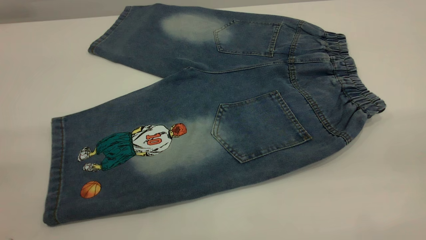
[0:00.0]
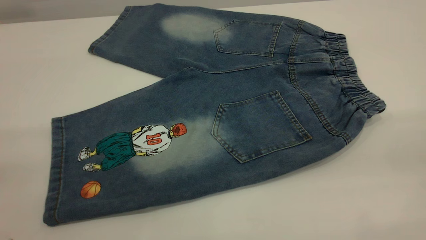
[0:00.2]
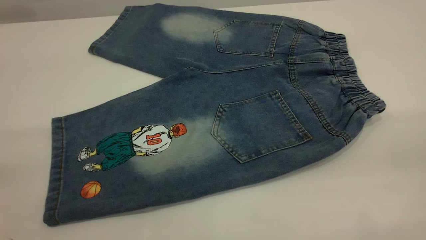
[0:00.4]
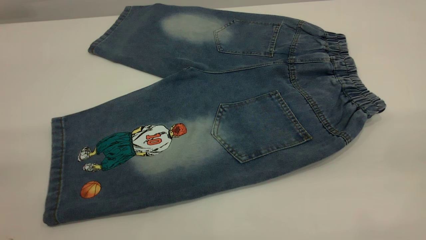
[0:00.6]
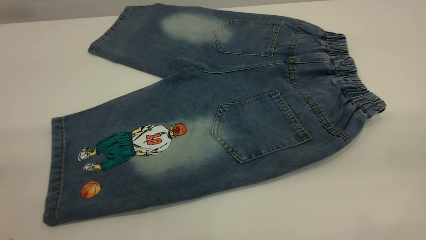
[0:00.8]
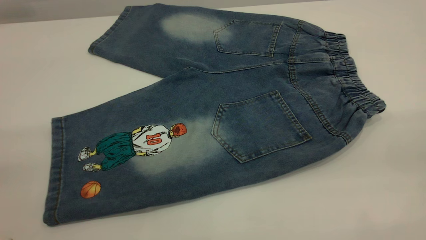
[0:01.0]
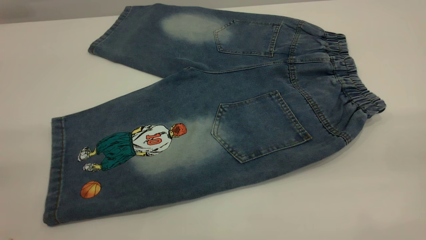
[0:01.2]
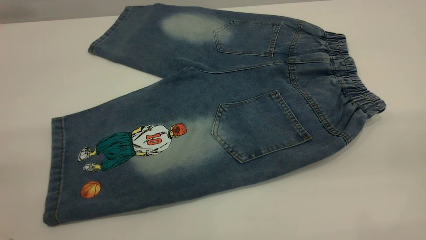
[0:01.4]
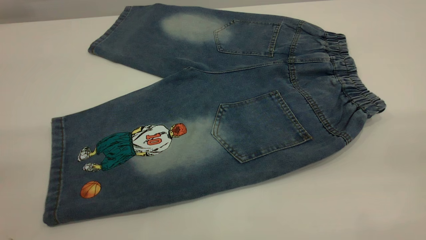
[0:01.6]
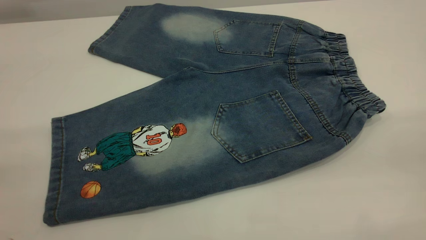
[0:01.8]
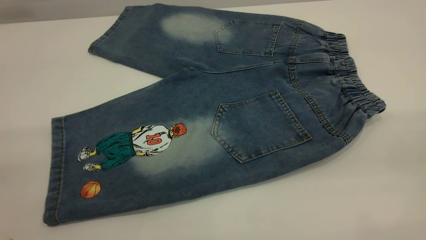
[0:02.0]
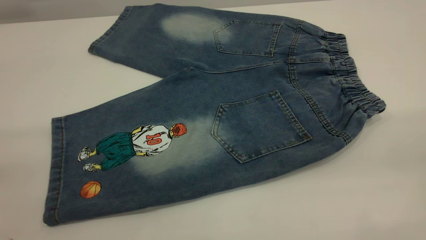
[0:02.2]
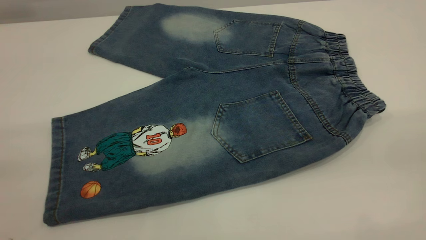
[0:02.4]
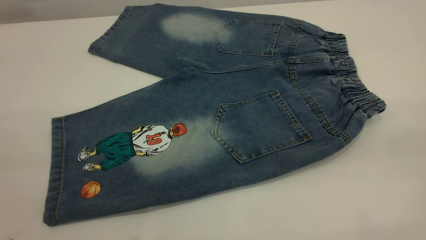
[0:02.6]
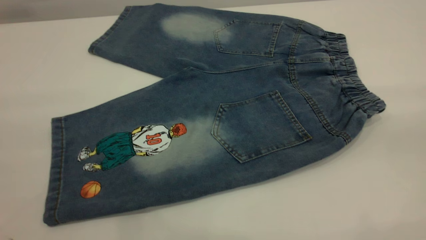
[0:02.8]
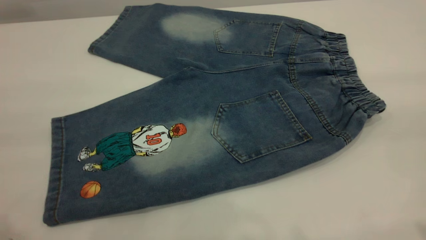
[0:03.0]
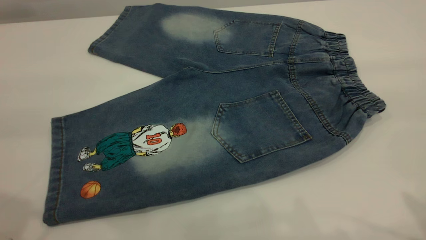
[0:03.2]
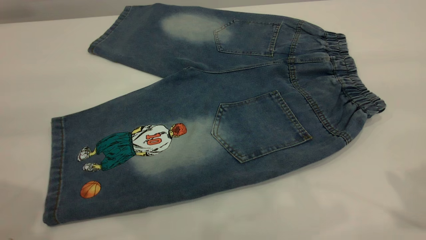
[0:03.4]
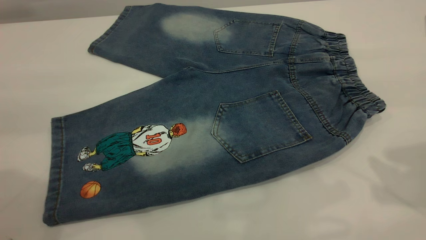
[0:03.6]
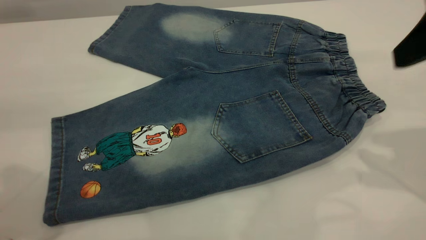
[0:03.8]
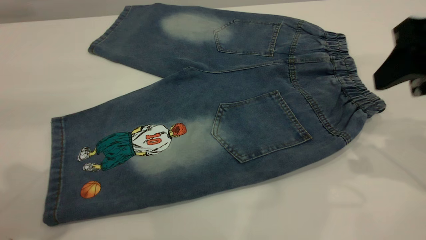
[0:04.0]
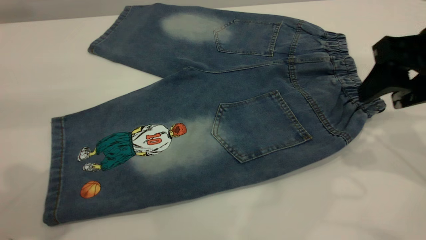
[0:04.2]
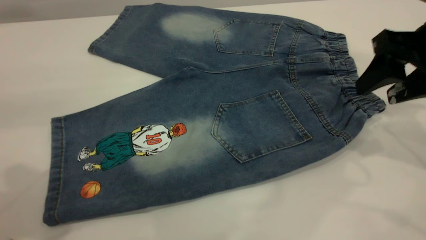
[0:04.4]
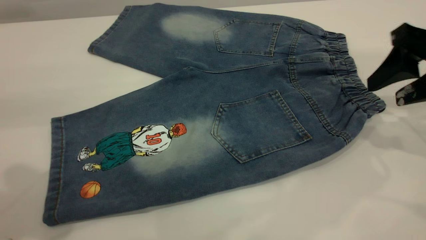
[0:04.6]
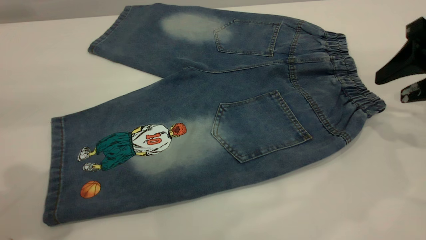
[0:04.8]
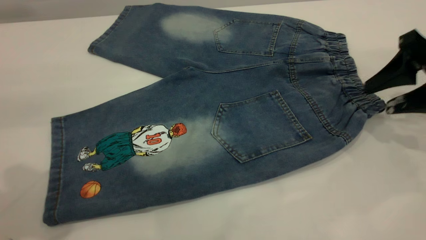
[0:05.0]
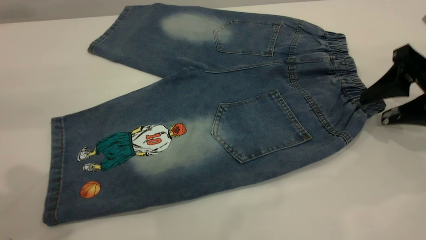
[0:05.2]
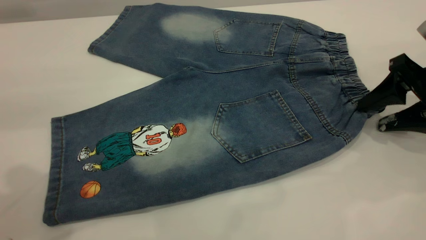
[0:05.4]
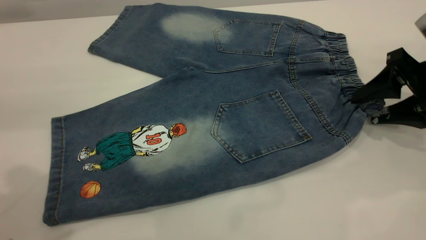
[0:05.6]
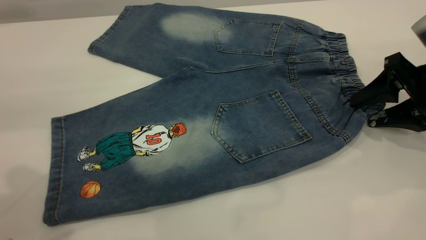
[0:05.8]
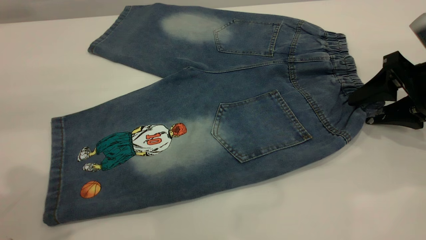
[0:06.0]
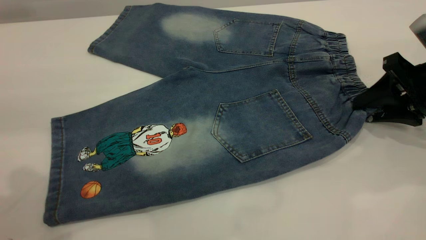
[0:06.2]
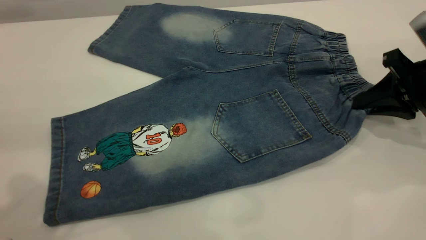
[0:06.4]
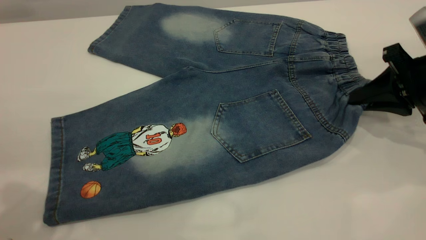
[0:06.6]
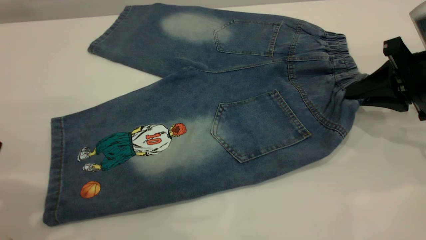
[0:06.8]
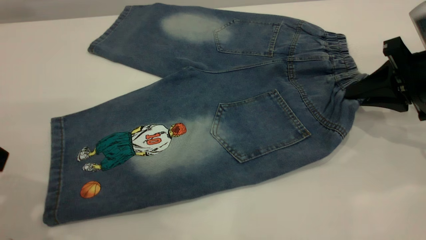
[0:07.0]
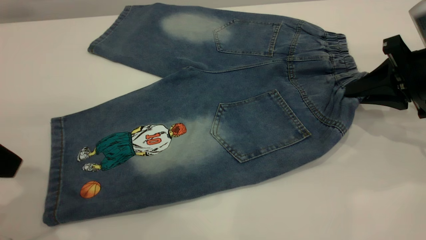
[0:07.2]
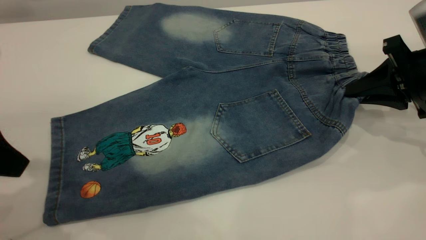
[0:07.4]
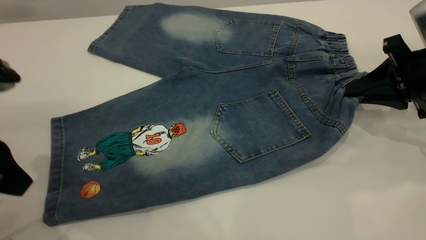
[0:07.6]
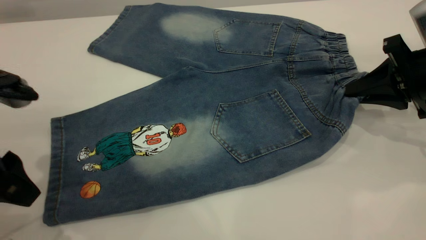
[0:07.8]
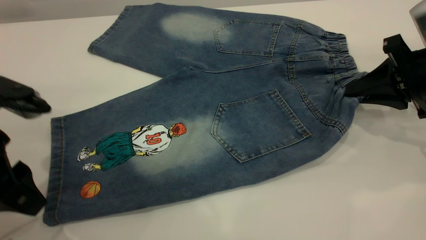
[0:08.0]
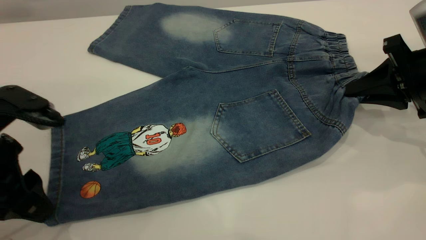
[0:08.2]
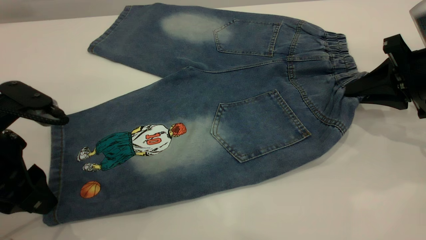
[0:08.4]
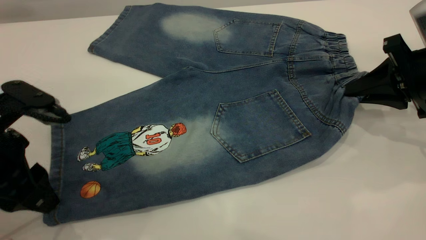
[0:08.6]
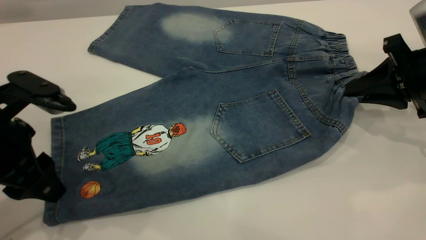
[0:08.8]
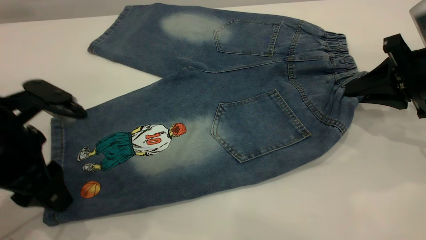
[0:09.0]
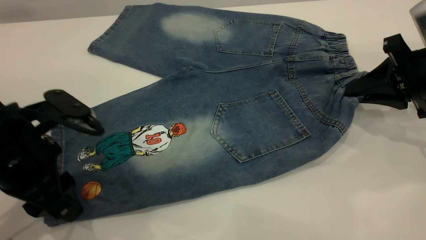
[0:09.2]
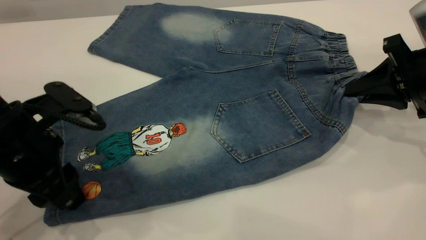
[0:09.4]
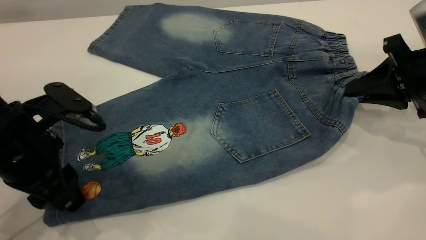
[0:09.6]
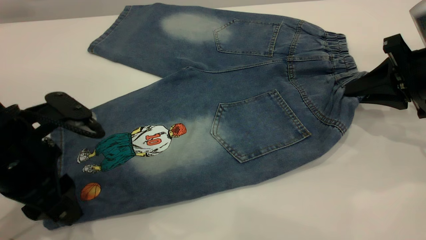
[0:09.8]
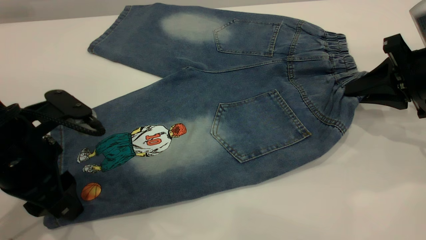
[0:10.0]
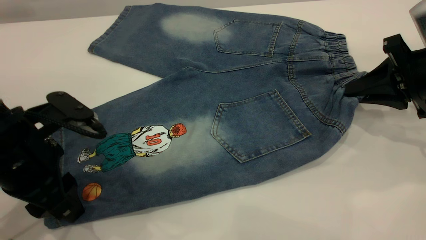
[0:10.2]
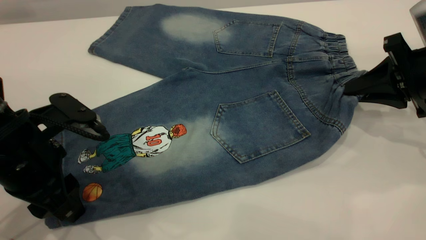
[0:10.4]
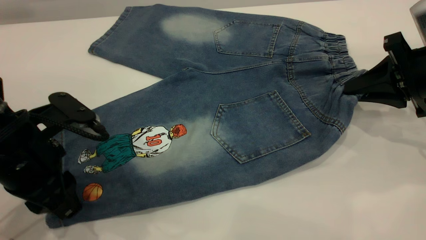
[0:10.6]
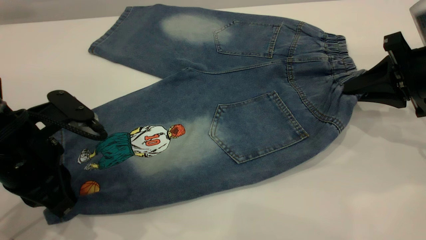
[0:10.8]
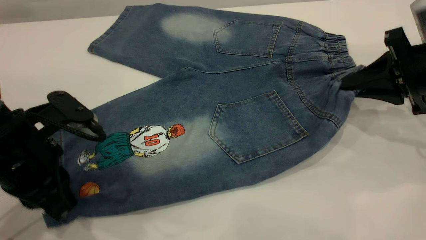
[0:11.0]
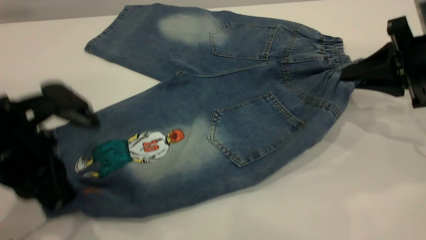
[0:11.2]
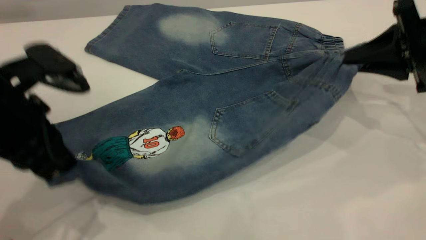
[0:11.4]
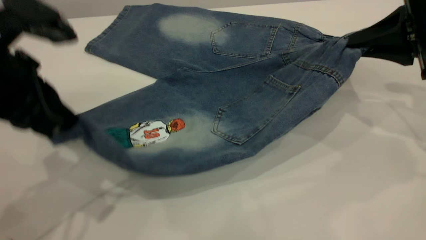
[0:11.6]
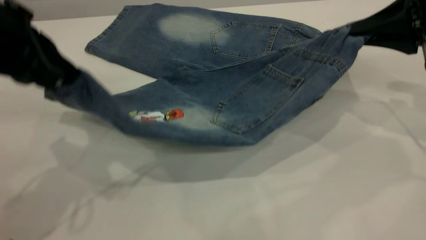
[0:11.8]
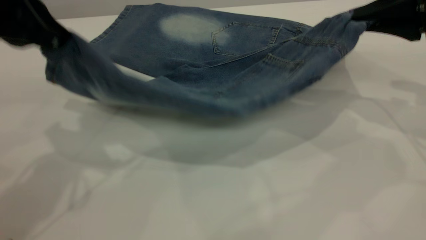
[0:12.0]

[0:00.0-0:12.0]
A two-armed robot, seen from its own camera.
0:00.0 to 0:01.6: Both grippers stay about where they are.
0:03.0 to 0:04.4: The right gripper goes approximately 25 cm forward and downward.
0:04.4 to 0:06.0: The right gripper moves downward, roughly 10 cm.
0:06.0 to 0:07.6: The right gripper closes up. Meanwhile the left gripper is displaced downward by some 15 cm.
0:07.6 to 0:09.0: The left gripper shifts by roughly 5 cm.
0:09.0 to 0:10.4: The grippers stay close to where they were, moving slightly.
0:10.4 to 0:12.0: The right gripper heads upward, covering roughly 10 cm; the left gripper moves upward and forward, roughly 15 cm, and closes.

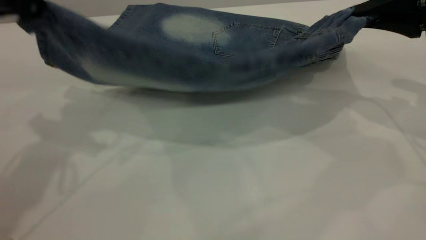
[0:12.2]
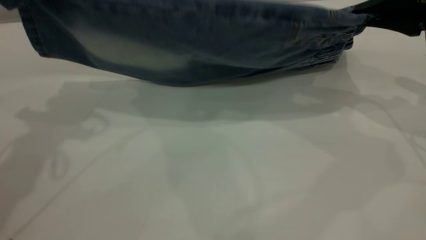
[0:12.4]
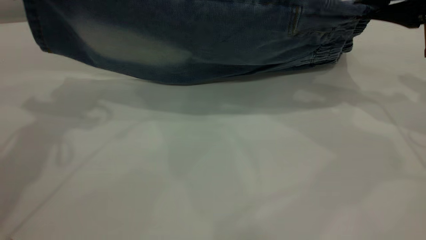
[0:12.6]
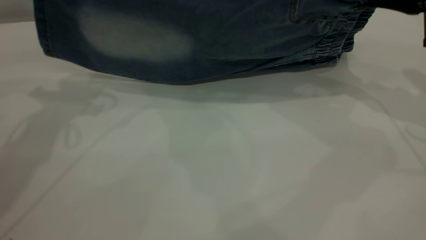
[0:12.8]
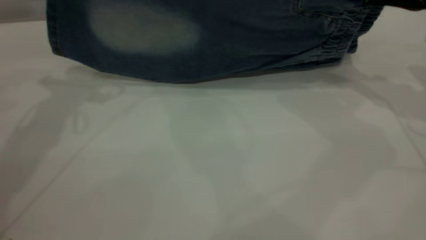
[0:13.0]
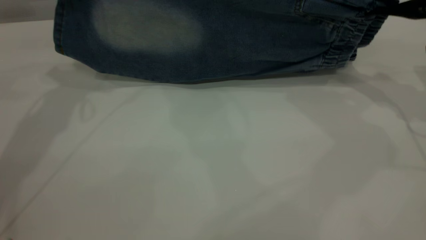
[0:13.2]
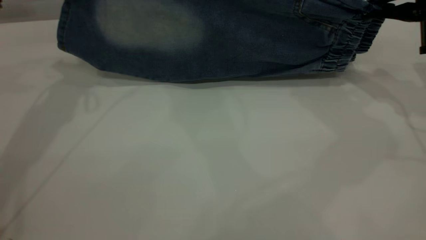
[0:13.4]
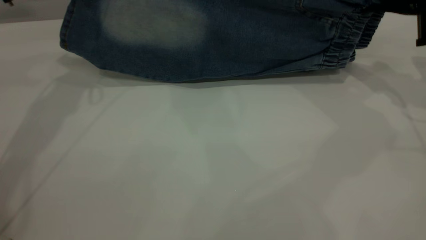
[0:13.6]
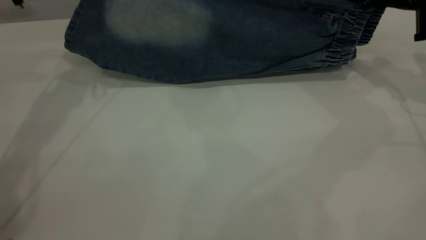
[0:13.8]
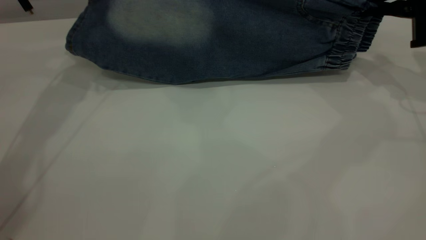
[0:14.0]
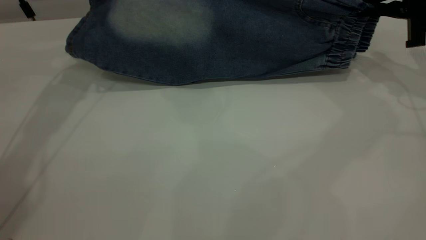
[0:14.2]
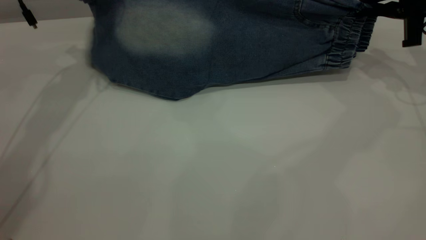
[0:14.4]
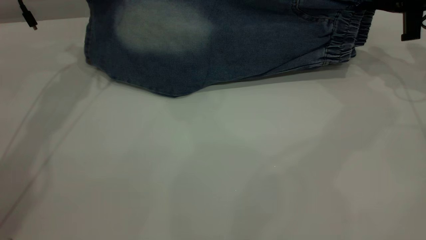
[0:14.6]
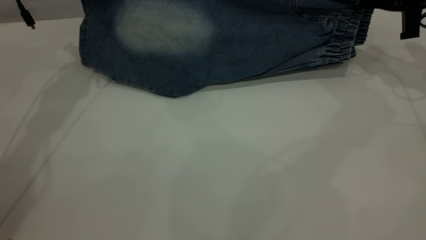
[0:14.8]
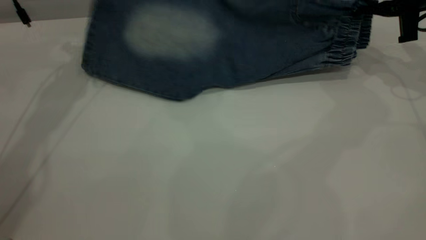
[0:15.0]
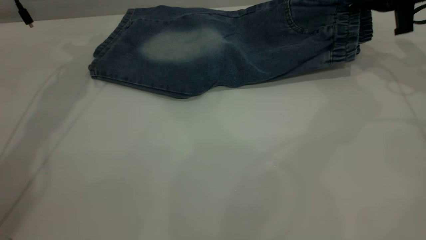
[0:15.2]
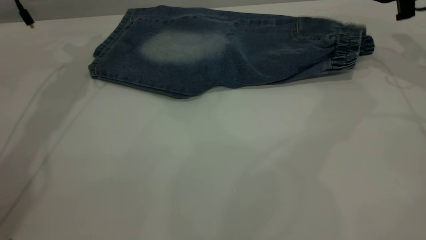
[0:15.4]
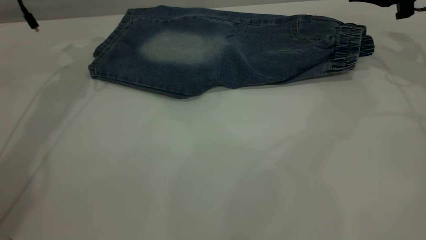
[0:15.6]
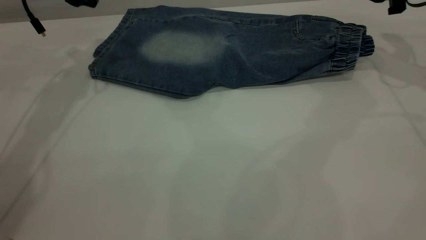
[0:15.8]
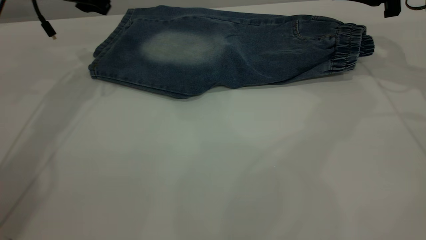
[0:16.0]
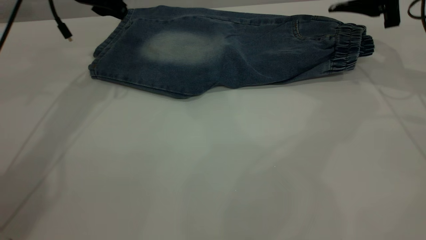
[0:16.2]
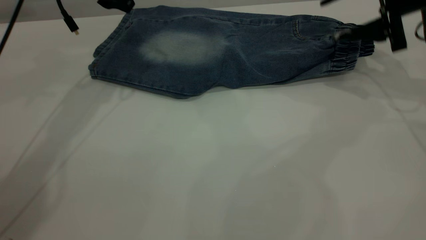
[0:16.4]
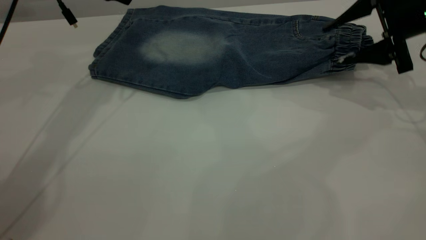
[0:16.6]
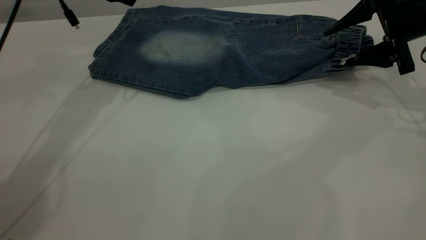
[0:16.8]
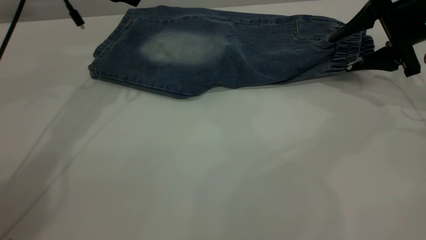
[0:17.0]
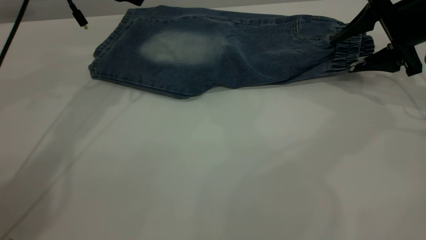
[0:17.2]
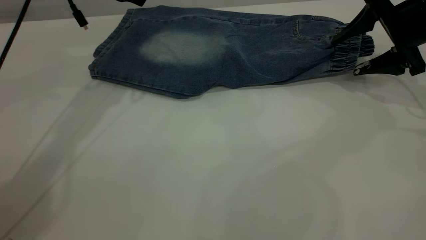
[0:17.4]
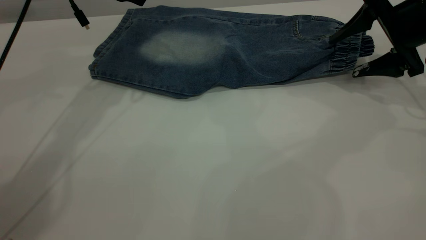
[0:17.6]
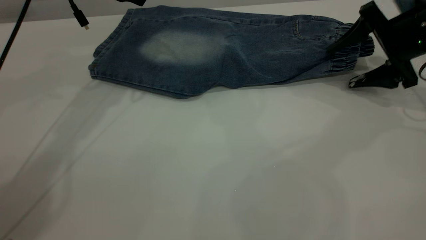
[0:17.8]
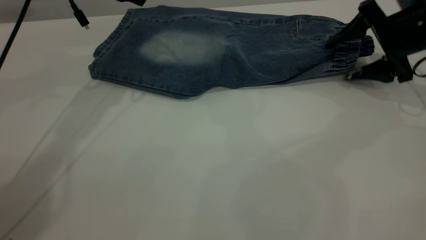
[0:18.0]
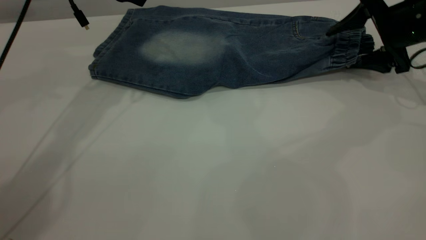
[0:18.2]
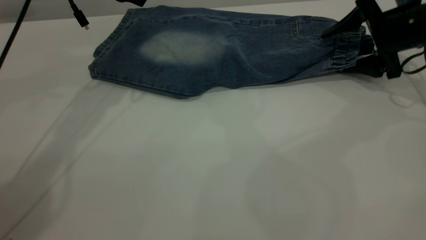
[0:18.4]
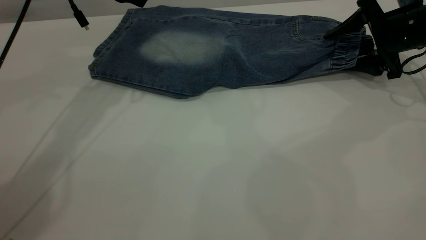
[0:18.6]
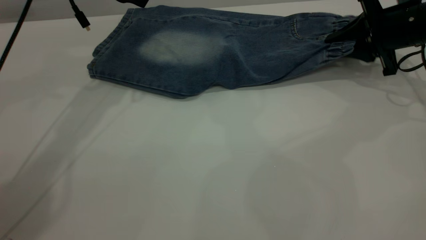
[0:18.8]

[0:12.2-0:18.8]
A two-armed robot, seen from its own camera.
Step, 0:12.2 to 0:15.4: Fold the bottom of the pants upward.
0:12.2 to 0:13.8: The right gripper is displaced forward by roughly 5 cm. The left gripper moves forward, approximately 15 cm.
0:13.8 to 0:15.4: The right gripper goes some 5 cm forward, and opens. Meanwhile the left gripper opens up.
0:15.4 to 0:17.2: The right gripper moves backward, roughly 5 cm, while the left gripper travels to the right by about 10 cm.
0:17.2 to 0:18.8: The right gripper closes its fingers.
